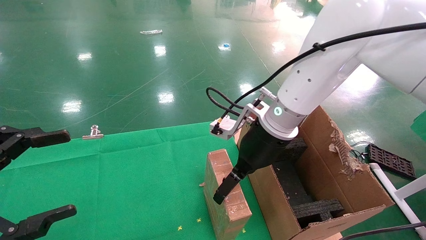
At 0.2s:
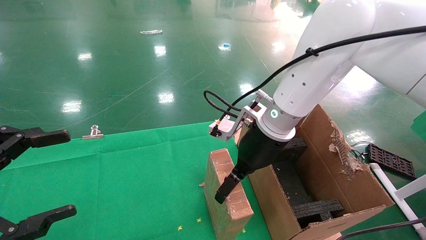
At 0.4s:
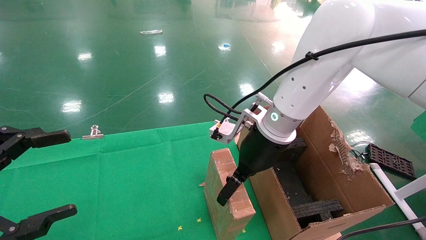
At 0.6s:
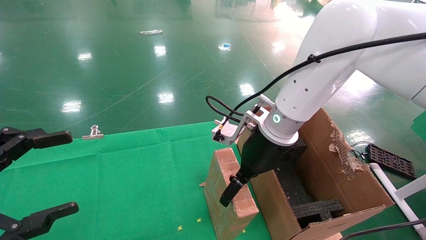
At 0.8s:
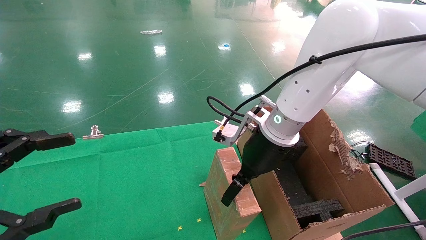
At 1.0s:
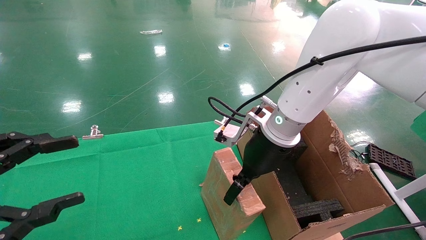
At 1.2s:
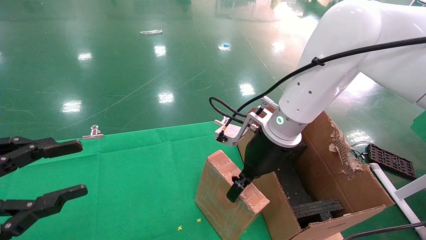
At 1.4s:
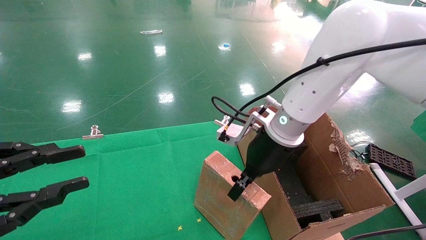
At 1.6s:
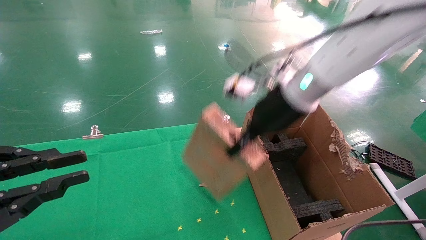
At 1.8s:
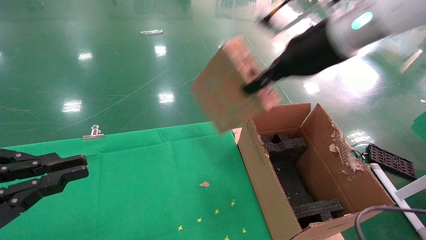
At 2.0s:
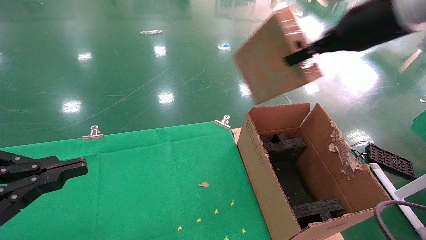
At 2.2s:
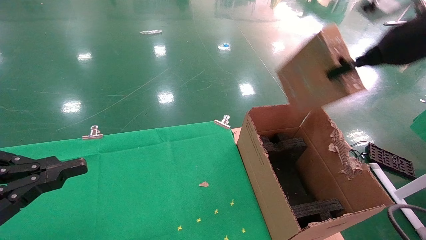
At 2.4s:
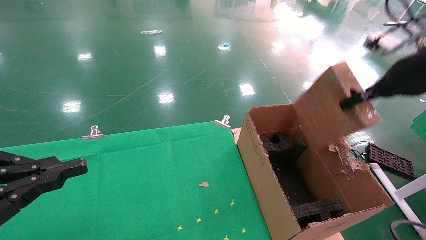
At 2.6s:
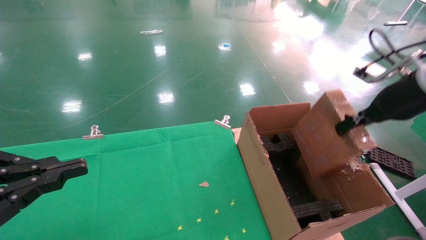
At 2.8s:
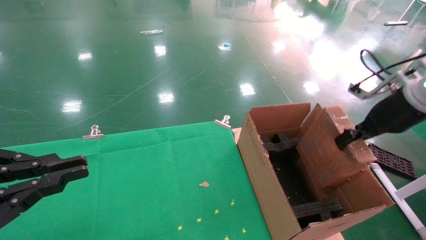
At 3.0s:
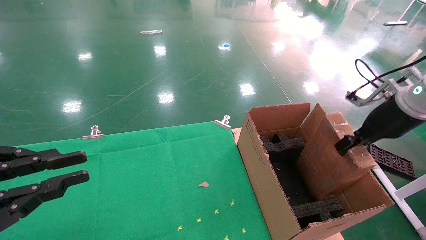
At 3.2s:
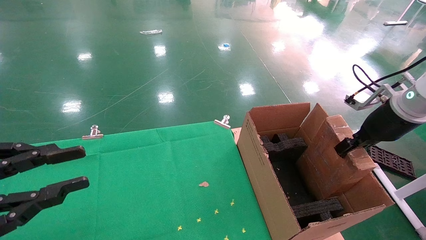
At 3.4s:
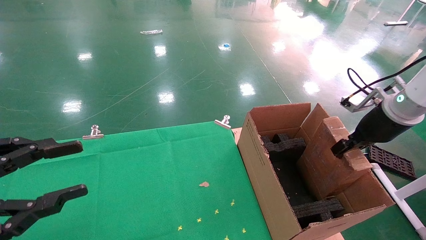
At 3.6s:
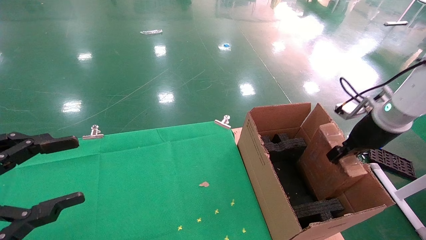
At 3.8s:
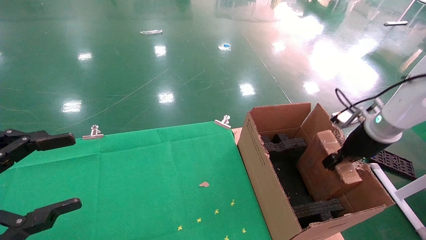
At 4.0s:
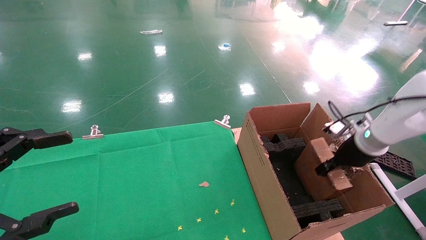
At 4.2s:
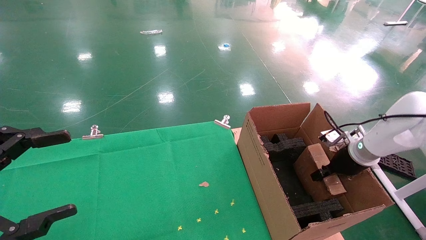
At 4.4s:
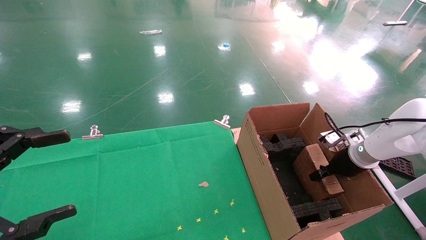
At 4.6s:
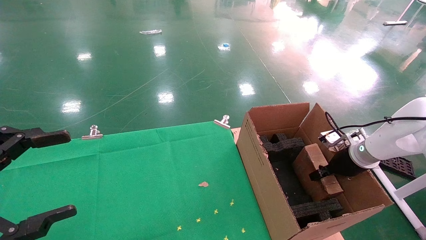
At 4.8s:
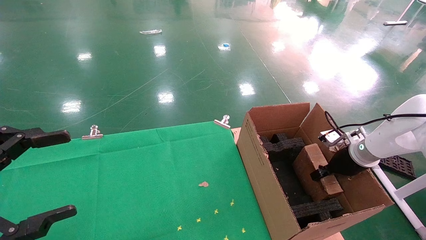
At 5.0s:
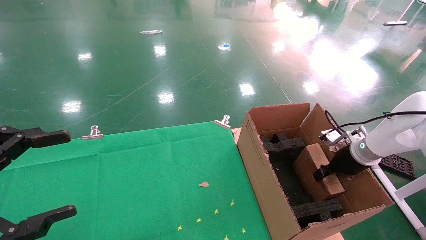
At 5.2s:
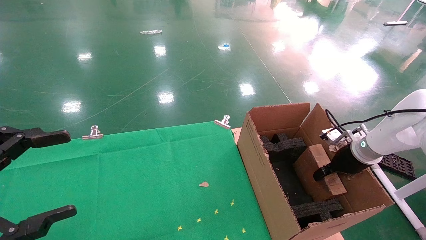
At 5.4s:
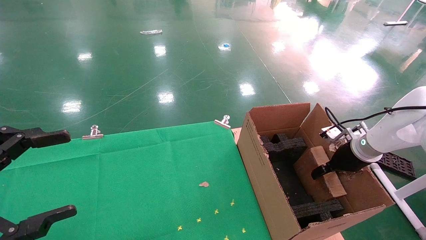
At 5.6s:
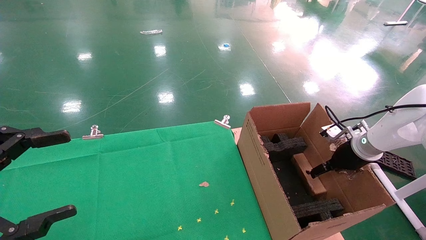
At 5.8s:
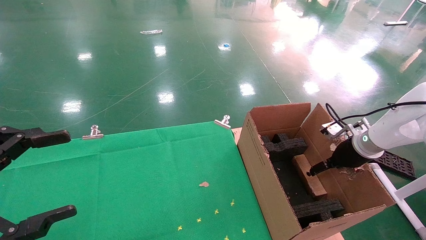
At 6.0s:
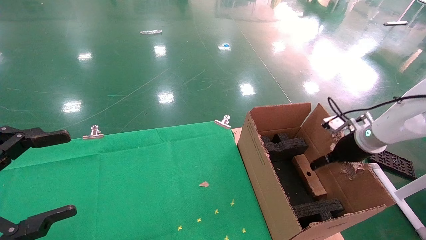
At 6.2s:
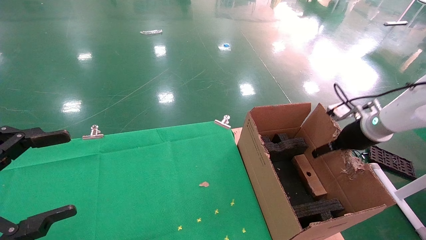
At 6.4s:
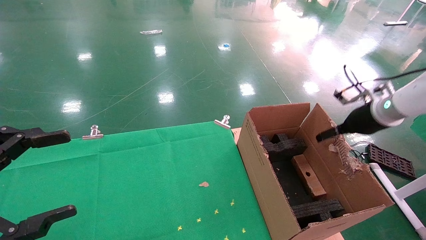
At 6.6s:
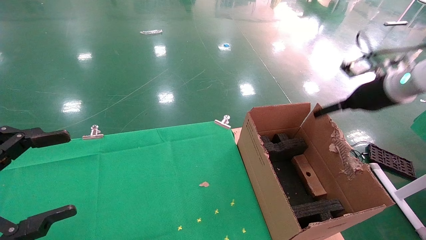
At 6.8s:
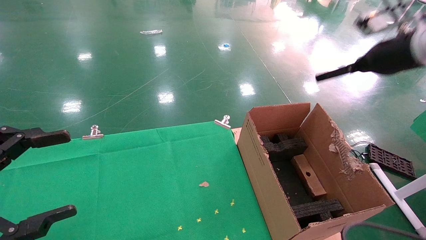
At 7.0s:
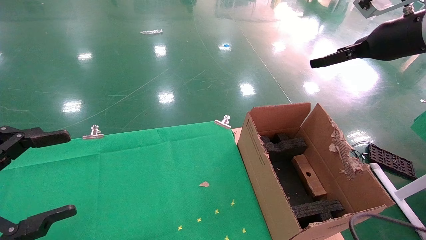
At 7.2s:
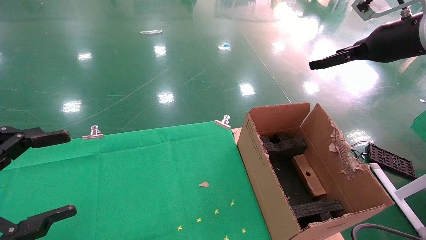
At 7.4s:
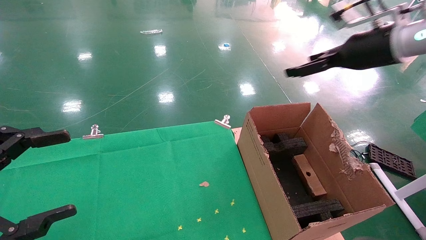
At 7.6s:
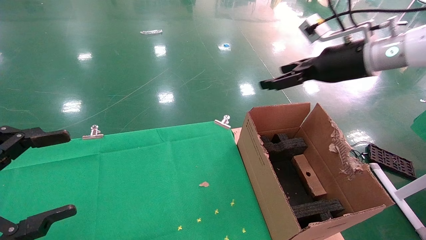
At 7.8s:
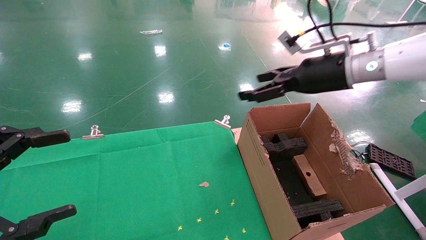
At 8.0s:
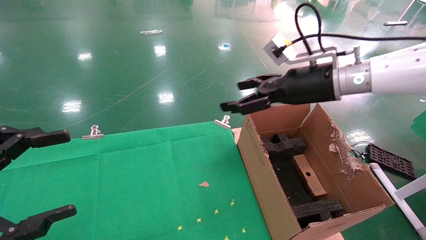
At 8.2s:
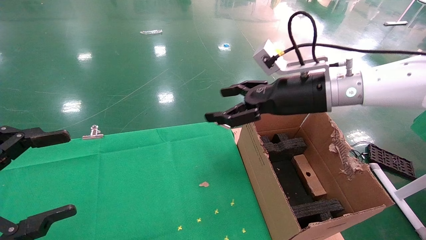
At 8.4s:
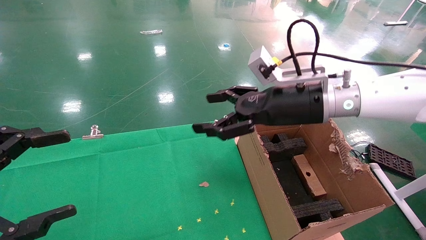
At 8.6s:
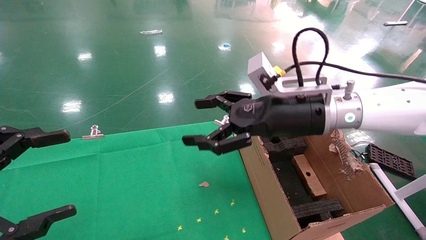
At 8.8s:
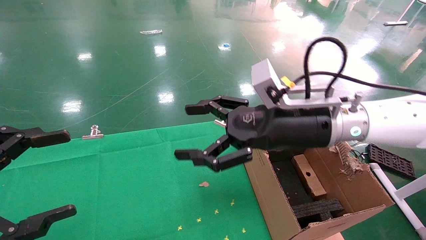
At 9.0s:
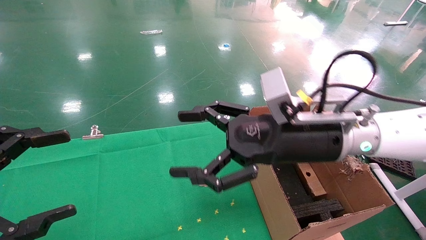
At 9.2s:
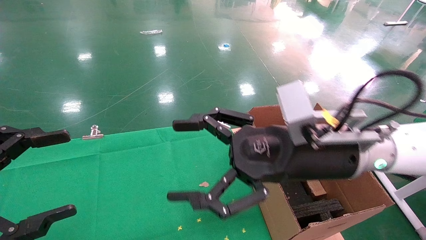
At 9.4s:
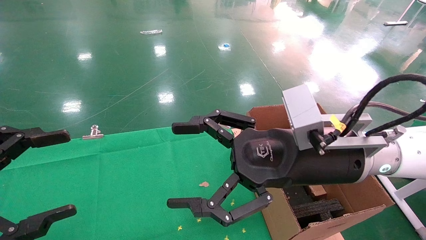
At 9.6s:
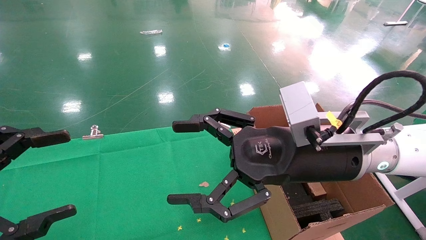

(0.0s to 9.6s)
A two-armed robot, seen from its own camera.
Task of the whole recording: using a robotic arm to pick up a cardboard box and palace it the carton.
Step, 1.6s - 5.4s: Place the mouse and the power cord paper box into the container.
0.0s - 1.6s: The right gripper travels upward by about 5 cm, and closes. The left gripper closes.
1.6s - 3.2s: The right gripper is displaced to the right by about 25 cm.
3.2s - 4.8s: The left gripper opens up. Meanwhile the right gripper shifts roughly 15 cm downward and forward.
4.8s - 6.4s: The right gripper heads upward, covering some 10 cm, and opens its fingers.
6.4s - 8.0s: The right gripper heads to the left and upward, covering roughly 20 cm.
8.0s - 9.6s: The right gripper heads backward, to the left and downward, covering some 15 cm.

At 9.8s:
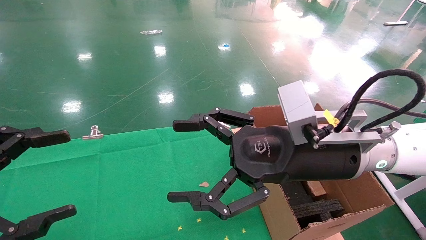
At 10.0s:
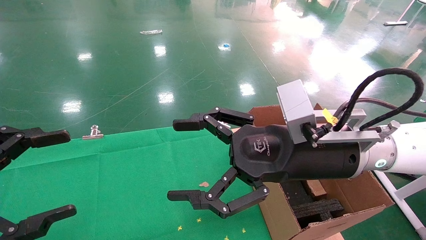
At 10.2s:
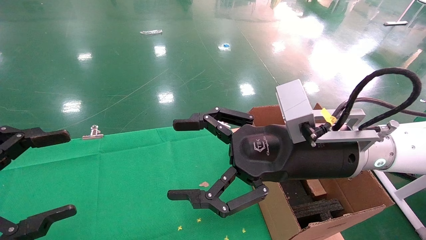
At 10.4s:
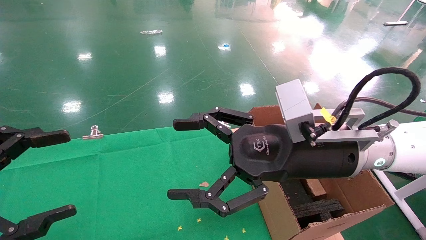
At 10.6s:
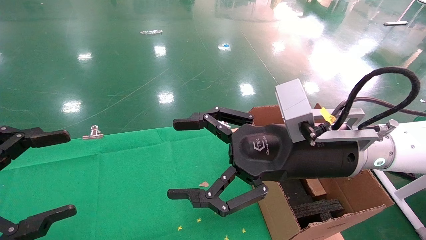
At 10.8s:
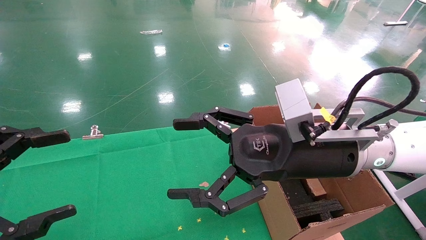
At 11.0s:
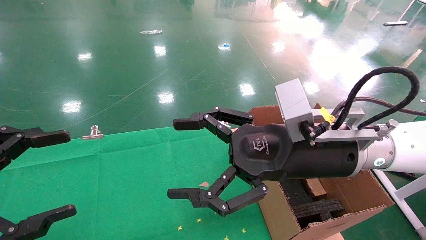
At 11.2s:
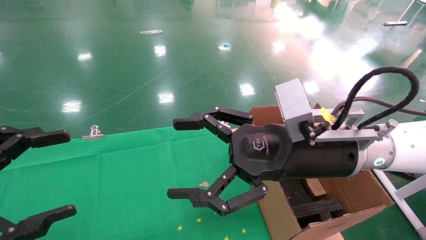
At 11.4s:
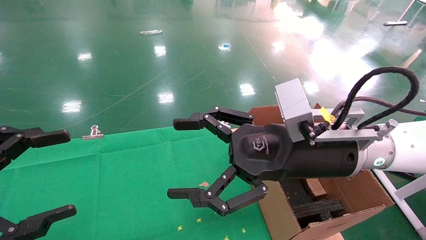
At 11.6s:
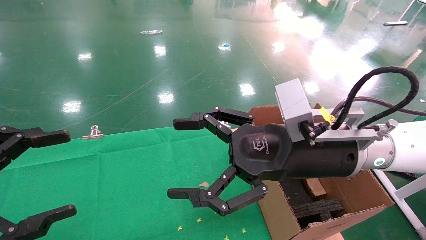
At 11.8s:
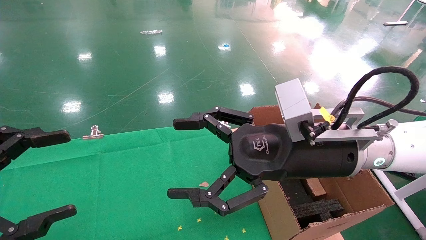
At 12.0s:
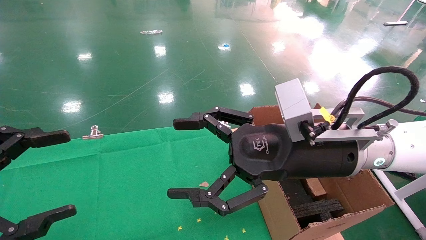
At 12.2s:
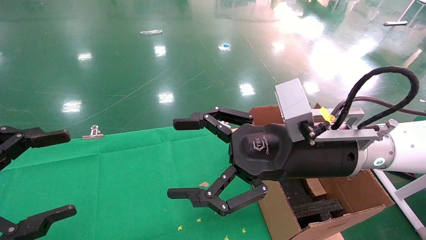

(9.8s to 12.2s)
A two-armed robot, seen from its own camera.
Task of the whole recording: using a robotic arm to pick up a cardboard box and palace it the carton.
9.8s - 12.2s: Both grippers stay put.
